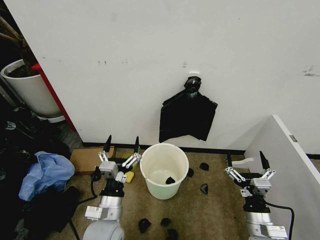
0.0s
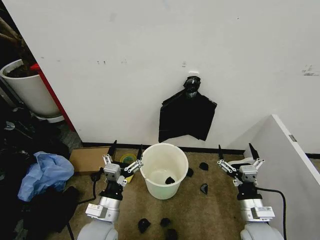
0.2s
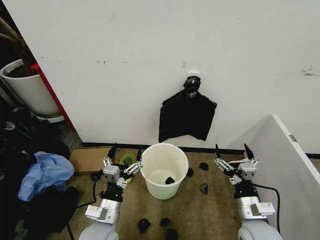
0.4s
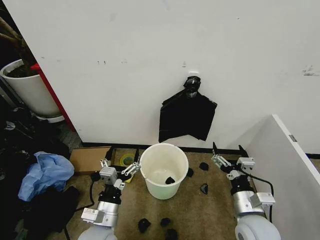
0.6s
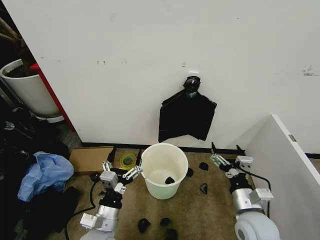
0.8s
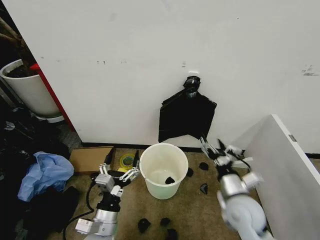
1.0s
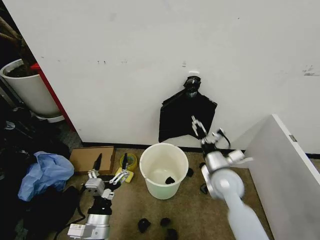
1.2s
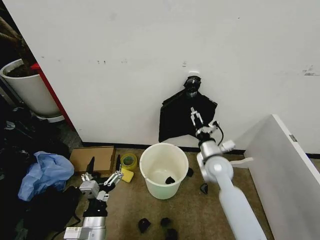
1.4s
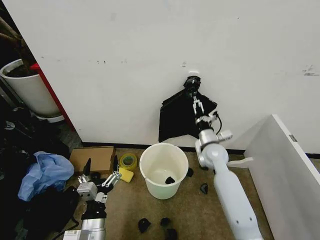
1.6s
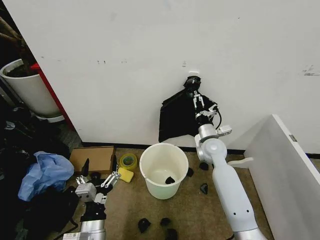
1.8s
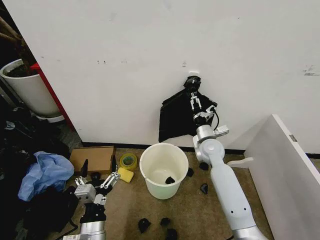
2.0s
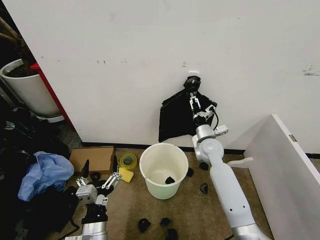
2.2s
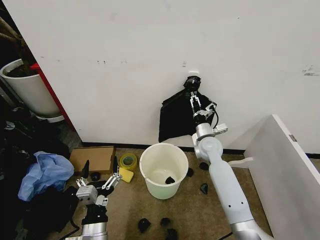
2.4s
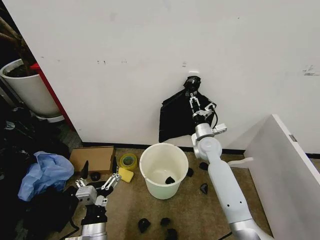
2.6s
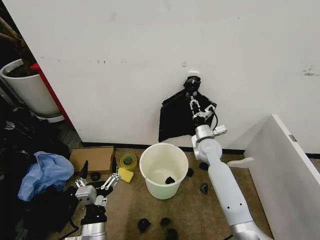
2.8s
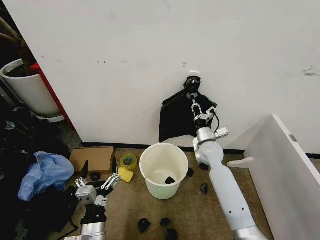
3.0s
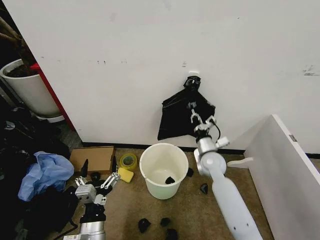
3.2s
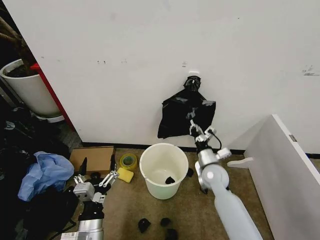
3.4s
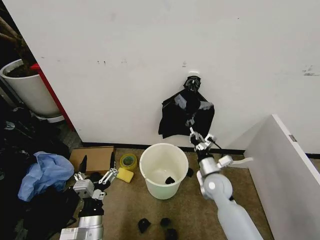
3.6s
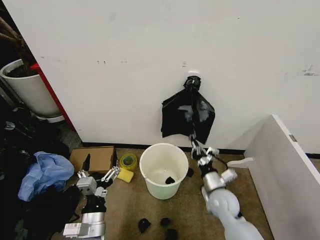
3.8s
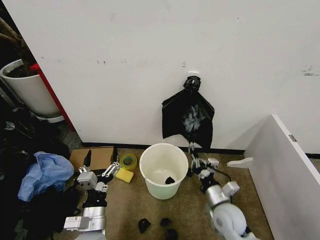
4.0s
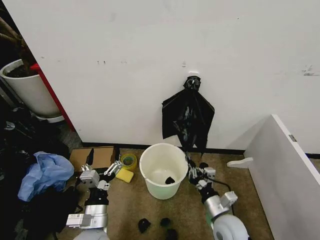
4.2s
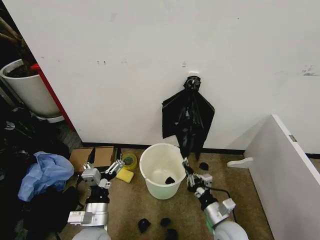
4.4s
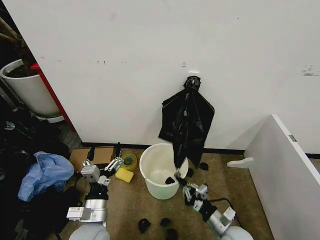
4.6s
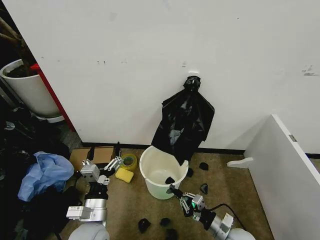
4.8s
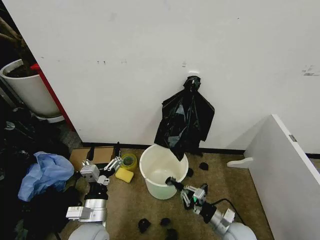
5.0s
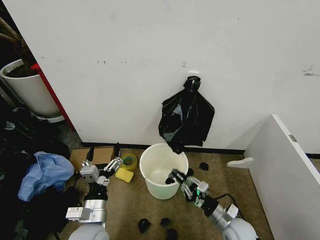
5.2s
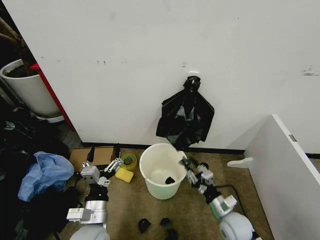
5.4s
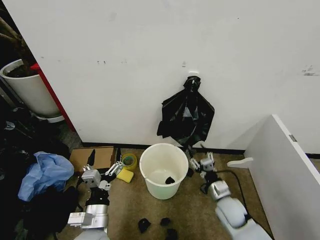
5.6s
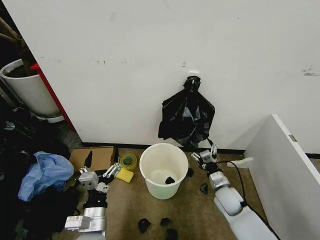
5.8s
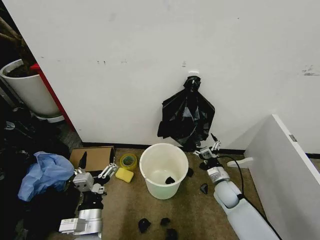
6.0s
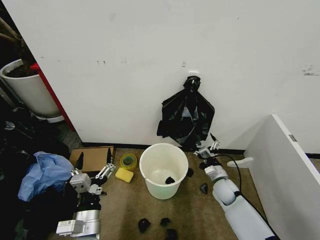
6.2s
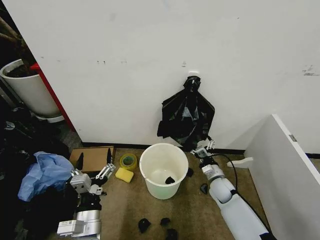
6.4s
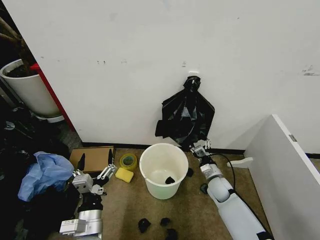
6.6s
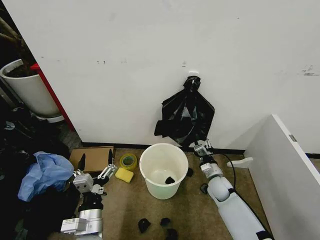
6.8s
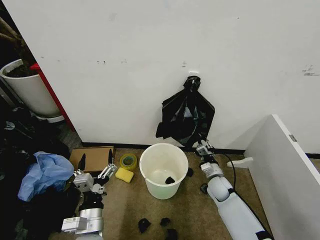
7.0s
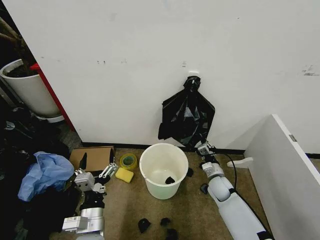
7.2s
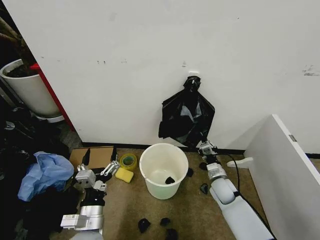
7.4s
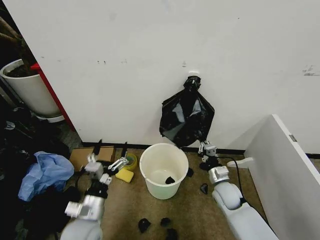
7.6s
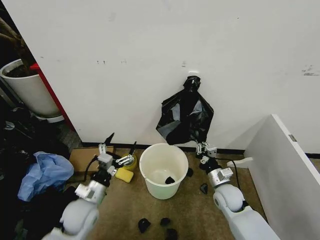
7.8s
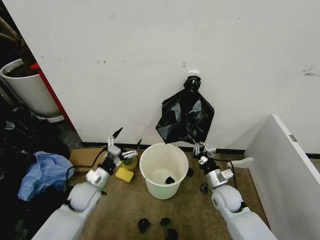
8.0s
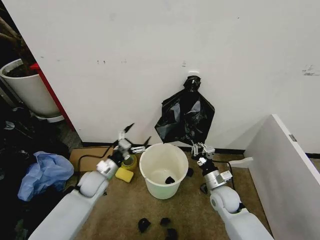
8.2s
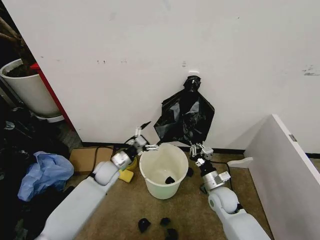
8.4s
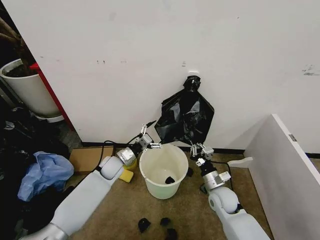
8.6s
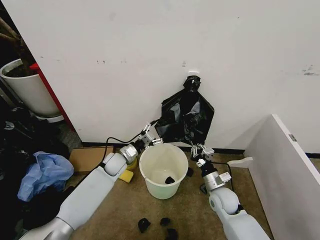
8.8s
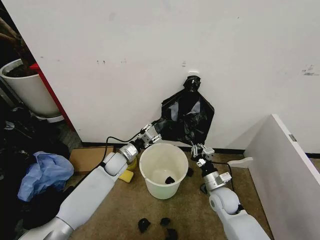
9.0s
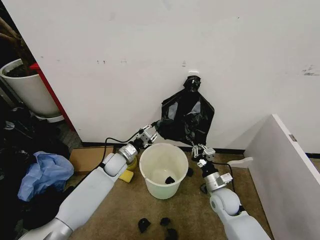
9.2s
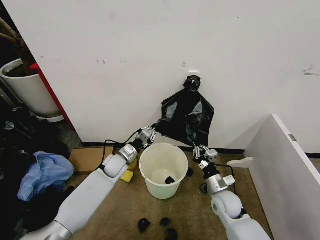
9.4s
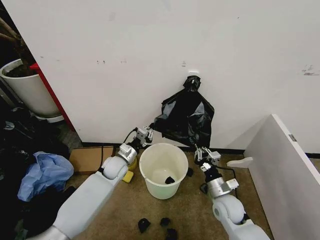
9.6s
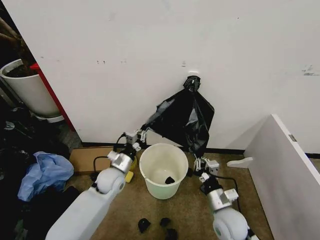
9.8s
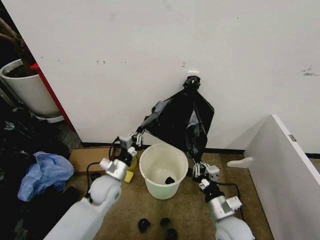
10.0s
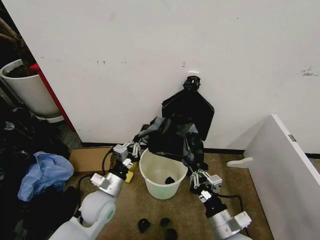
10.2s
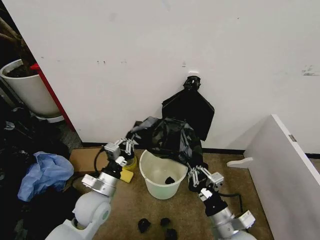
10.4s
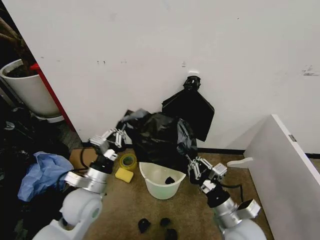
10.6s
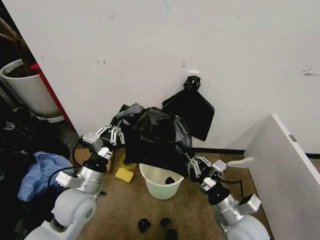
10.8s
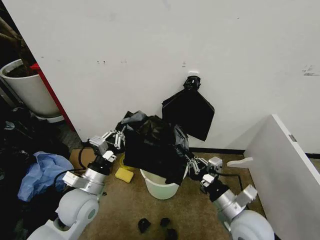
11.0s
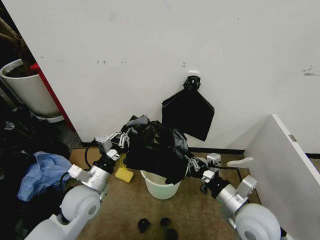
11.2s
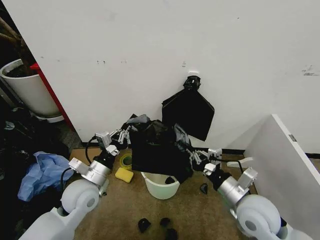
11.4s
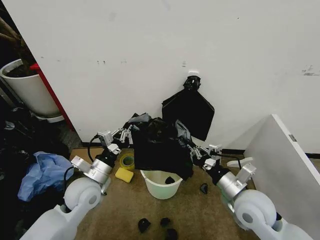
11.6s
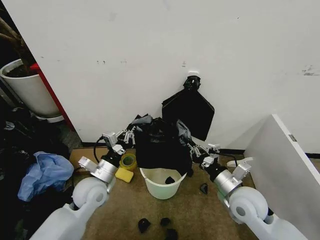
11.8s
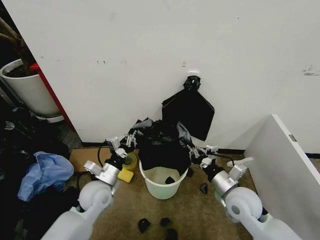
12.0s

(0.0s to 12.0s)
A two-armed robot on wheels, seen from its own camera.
Task of the whole recording: Place the garbage bag over the trash bin.
1.6s - 3.0s: The right gripper closes.
3.0s - 4.4s: The right gripper is displaced backward by about 25 cm. Meanwhile the left gripper moves forward, some 5 cm.
4.4s - 6.0s: The right gripper travels forward by roughly 15 cm, and opens its fingers.
6.0s - 7.6s: The right gripper closes up.
7.6s - 9.0s: The left gripper is displaced forward by about 25 cm, and closes its fingers.
9.0s - 10.4s: The right gripper heads backward and upward, covering roughly 20 cm; the left gripper shifts about 20 cm backward, and closes up.
10.4s - 12.0s: The right gripper shifts roughly 10 cm forward.

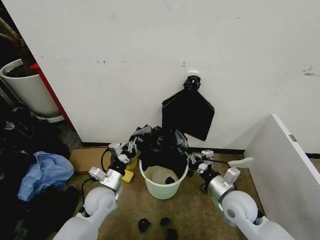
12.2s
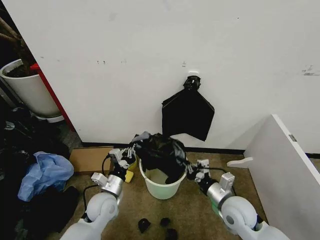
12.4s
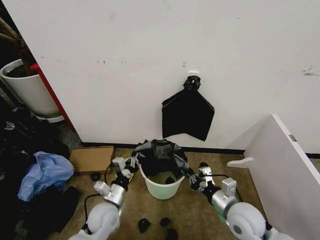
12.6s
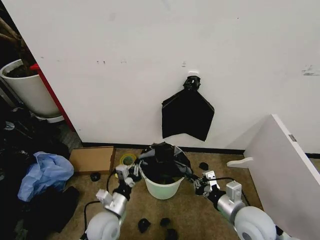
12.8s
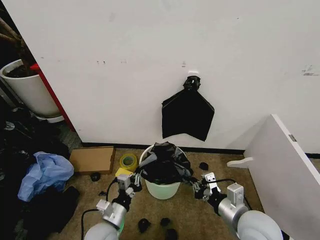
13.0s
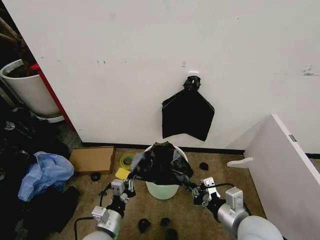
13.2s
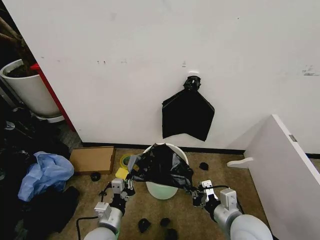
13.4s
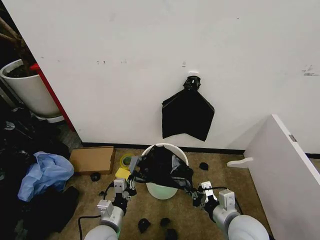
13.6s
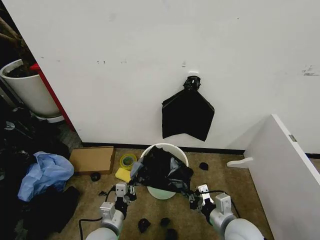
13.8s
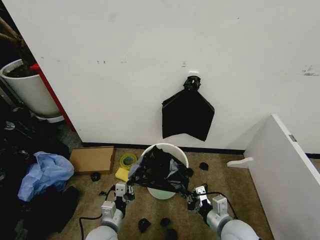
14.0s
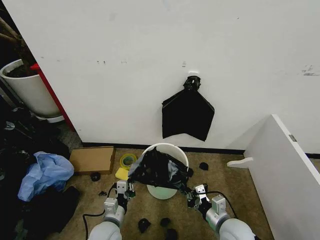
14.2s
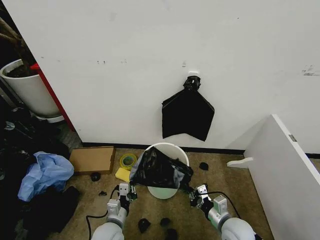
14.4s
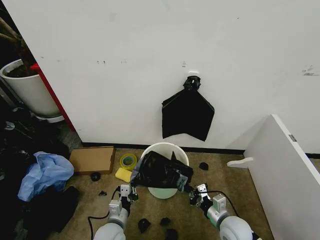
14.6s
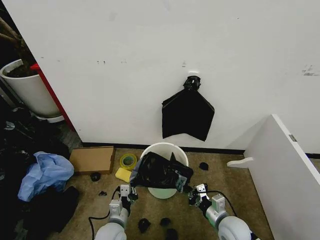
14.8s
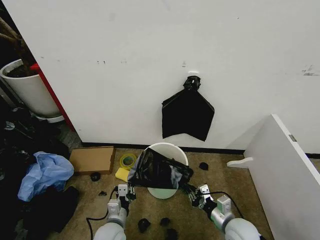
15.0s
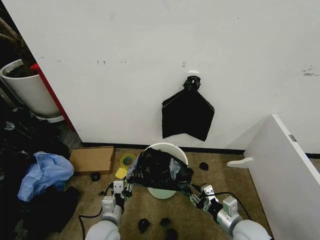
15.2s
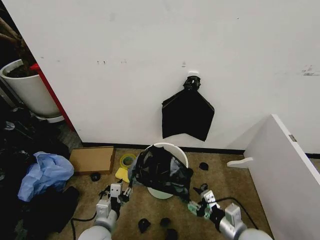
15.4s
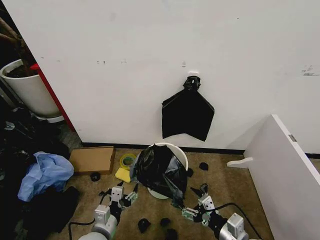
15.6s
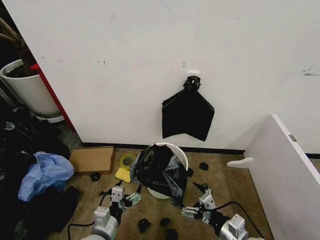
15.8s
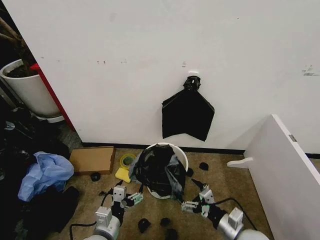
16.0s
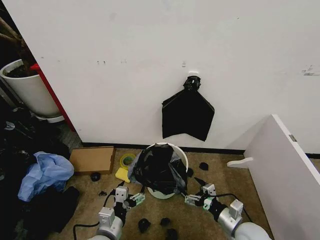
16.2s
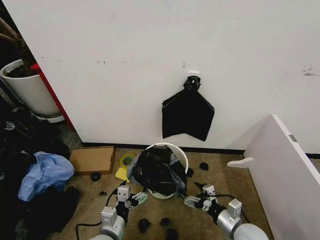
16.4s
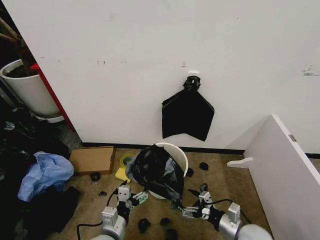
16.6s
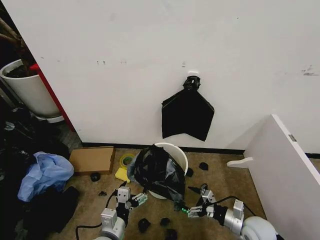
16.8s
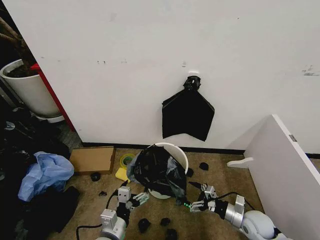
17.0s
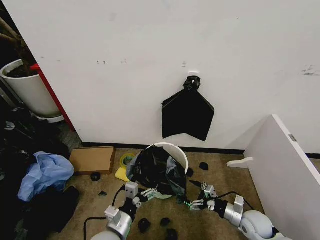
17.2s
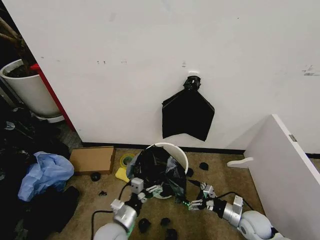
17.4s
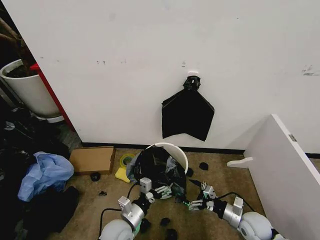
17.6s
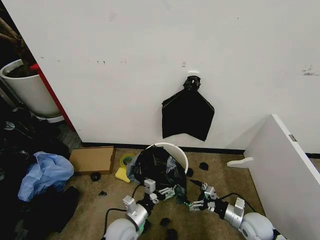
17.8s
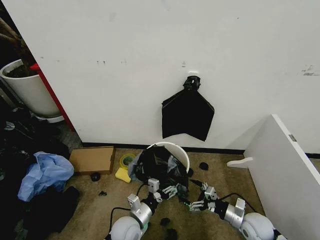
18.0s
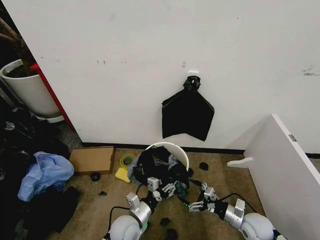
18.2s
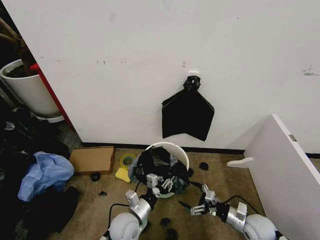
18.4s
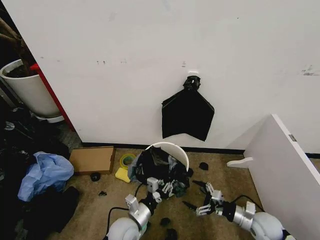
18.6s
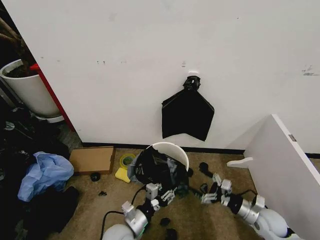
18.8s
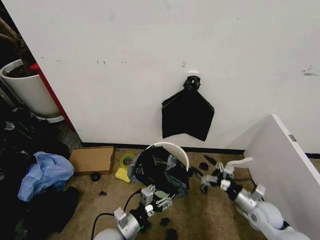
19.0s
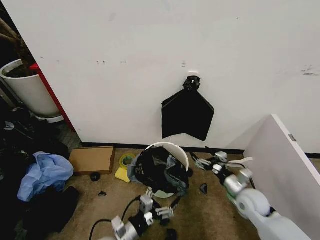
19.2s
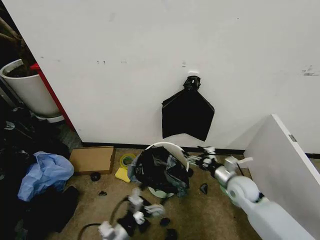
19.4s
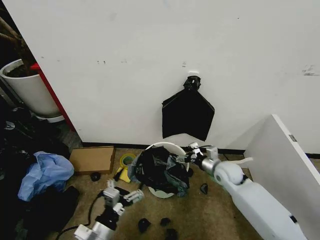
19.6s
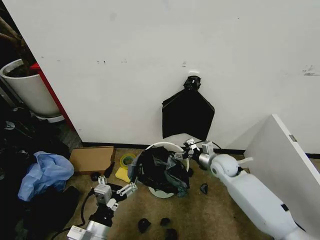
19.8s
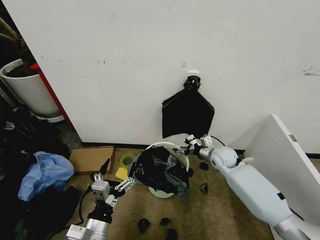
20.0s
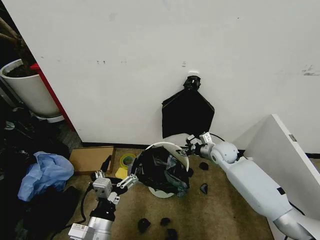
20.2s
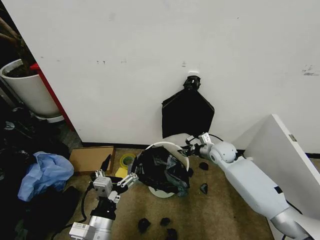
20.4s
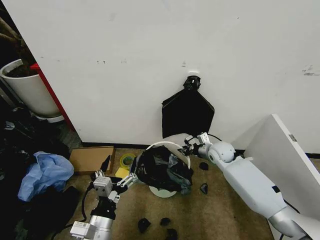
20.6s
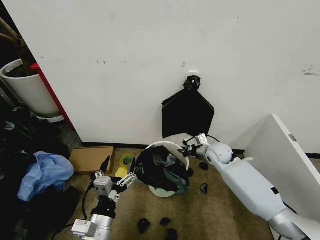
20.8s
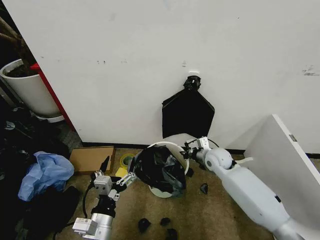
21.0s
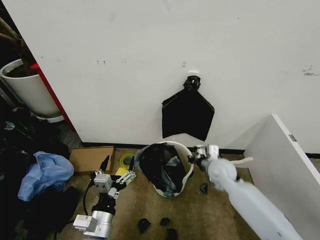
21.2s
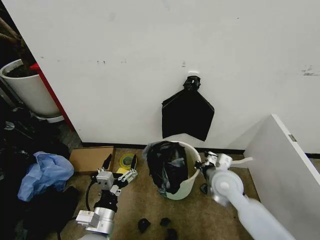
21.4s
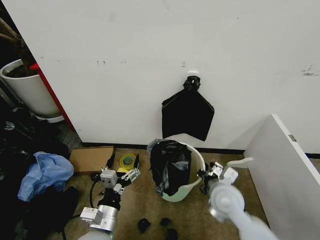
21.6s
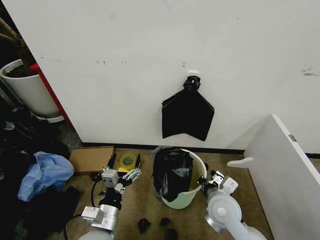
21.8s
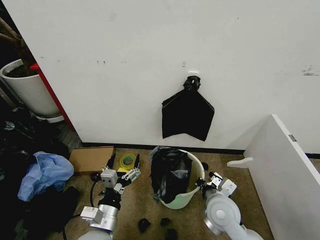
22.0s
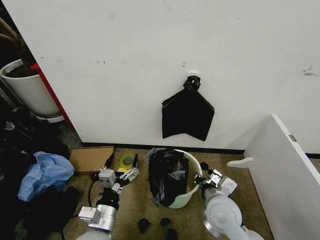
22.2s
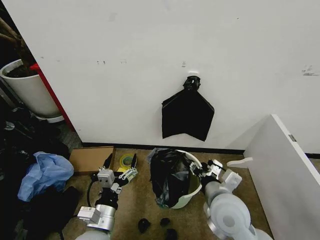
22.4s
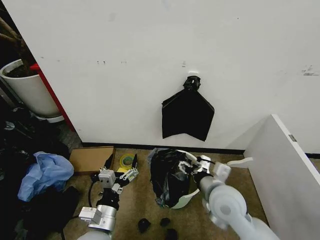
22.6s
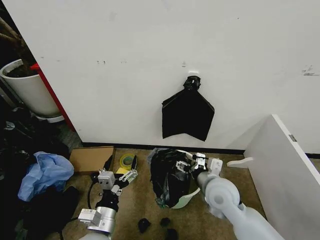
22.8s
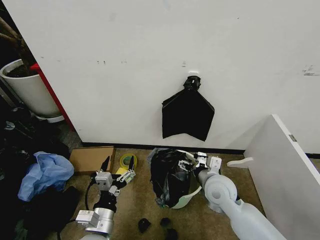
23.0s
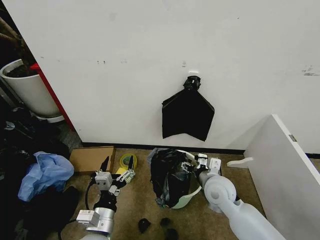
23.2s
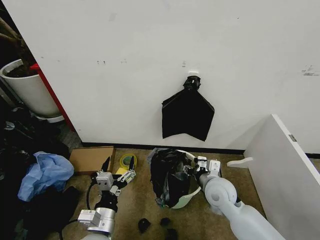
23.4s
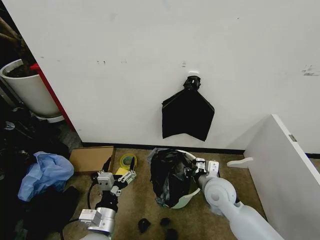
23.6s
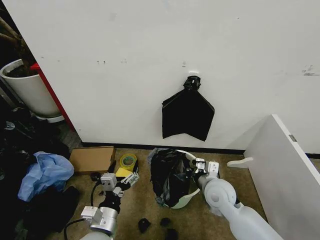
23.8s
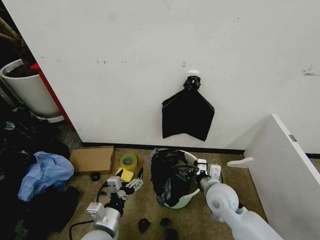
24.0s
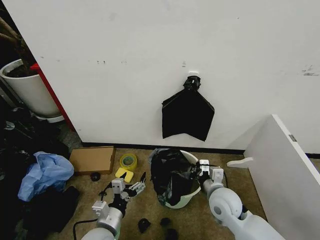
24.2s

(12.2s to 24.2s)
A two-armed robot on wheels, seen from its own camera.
Task of the whole recording: Place the garbage bag over the trash bin.
12.2s - 13.8s: The left gripper goes some 15 cm backward and downward, while the right gripper shifts approximately 10 cm backward.
13.8s - 15.2s: The right gripper opens.
15.2s - 16.6s: The right gripper opens its fingers; the left gripper moves roughly 5 cm, and opens up.
16.6s - 18.2s: The left gripper travels forward and downward by roughly 10 cm, and closes its fingers. Meanwhile the right gripper heads to the right, forward and downward, covering about 10 cm.
18.2s - 19.8s: The right gripper goes approximately 25 cm forward, upward and to the left. Meanwhile the left gripper travels backward, upward and to the left by roughly 15 cm, and opens.
19.8s - 21.2s: The right gripper ends up approximately 5 cm from where it was, and closes.
21.2s - 22.6s: The right gripper travels backward and upward by roughly 15 cm, and opens.
22.6s - 24.2s: The right gripper goes some 5 cm downward, and closes its fingers. Meanwhile the left gripper ends up approximately 5 cm from where it was.
